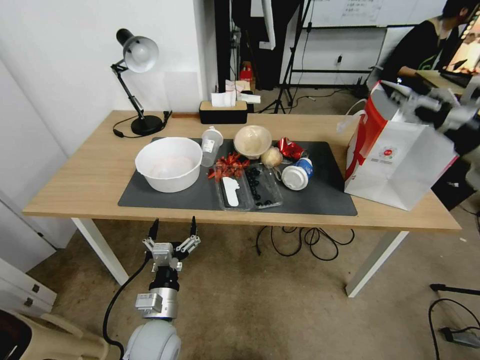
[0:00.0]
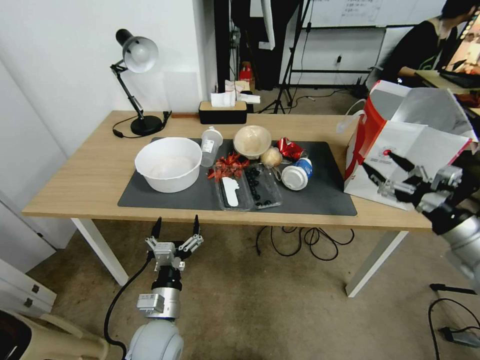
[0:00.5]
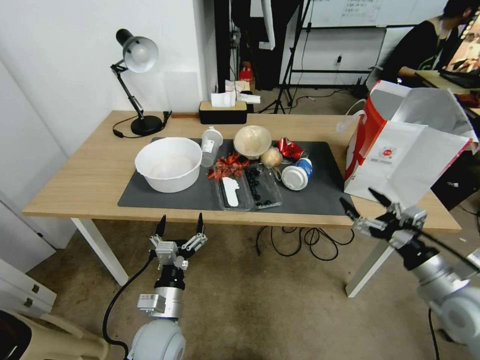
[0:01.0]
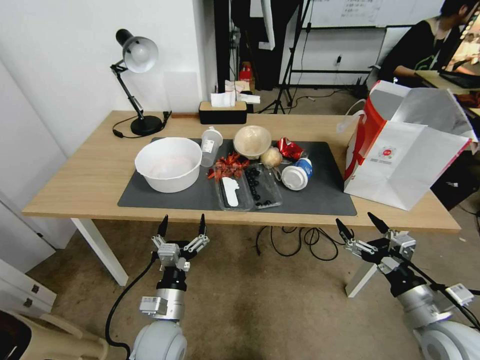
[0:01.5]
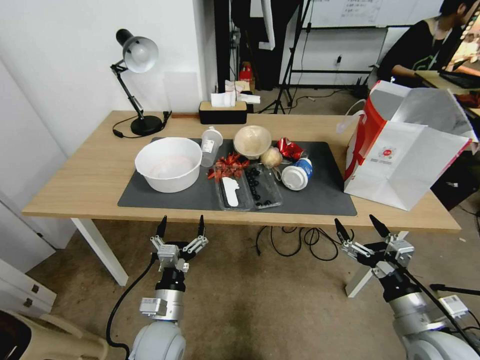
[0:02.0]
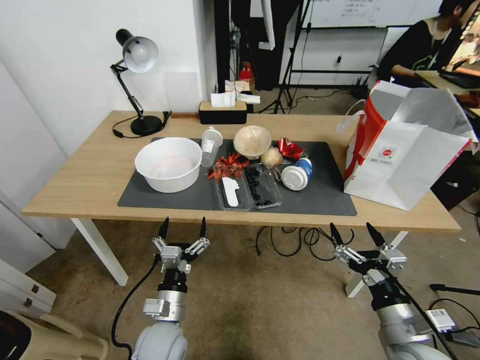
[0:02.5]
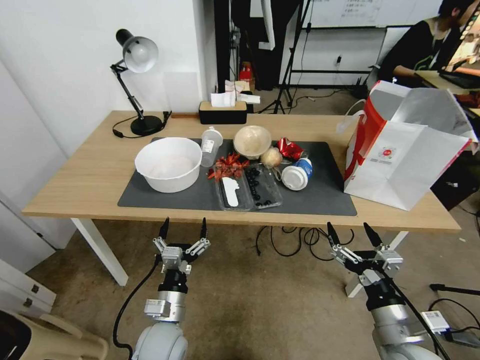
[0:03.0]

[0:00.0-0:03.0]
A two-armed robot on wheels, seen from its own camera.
Task of the whole recording: Pick up the food delivery bag from the floor and place it on the table.
0:00.0 to 0:01.5: The right gripper is displaced downward and backward by some 30 cm.
0:01.5 to 0:03.0: The right gripper goes approximately 10 cm to the left.

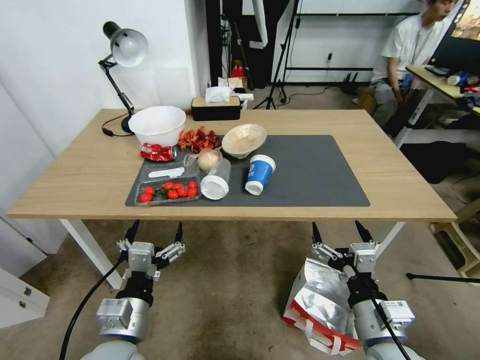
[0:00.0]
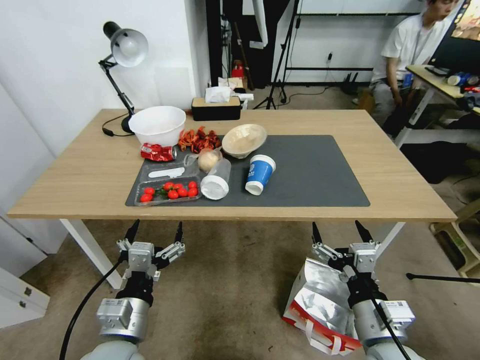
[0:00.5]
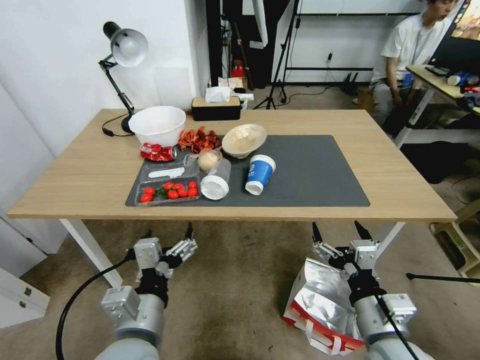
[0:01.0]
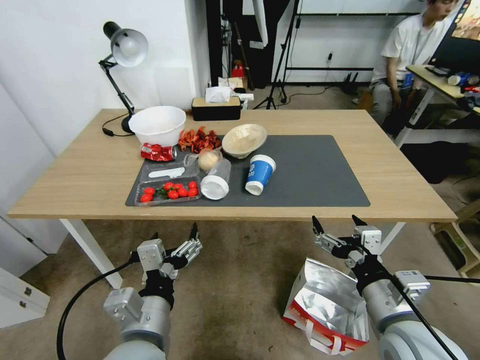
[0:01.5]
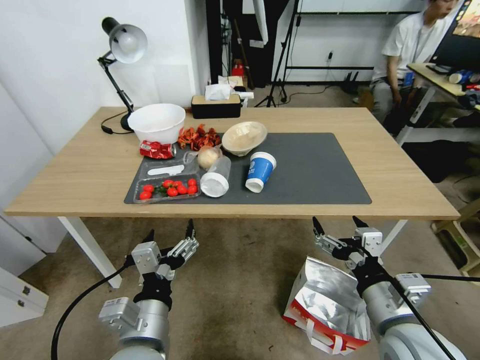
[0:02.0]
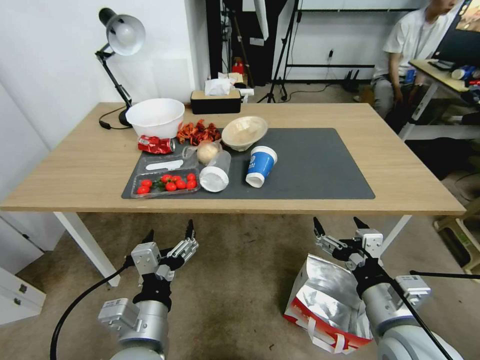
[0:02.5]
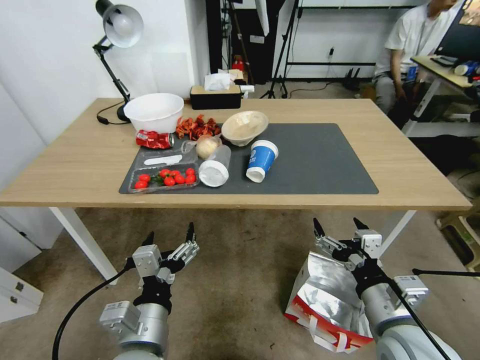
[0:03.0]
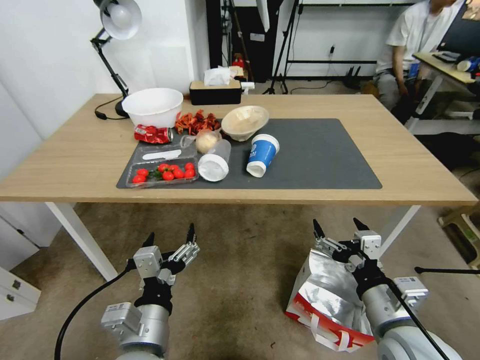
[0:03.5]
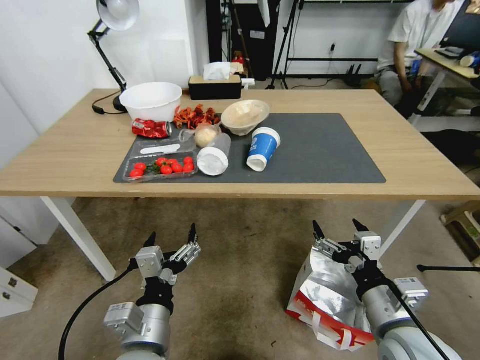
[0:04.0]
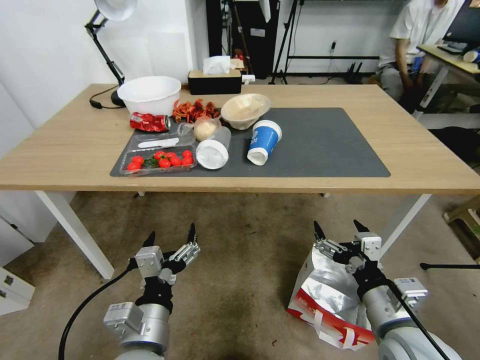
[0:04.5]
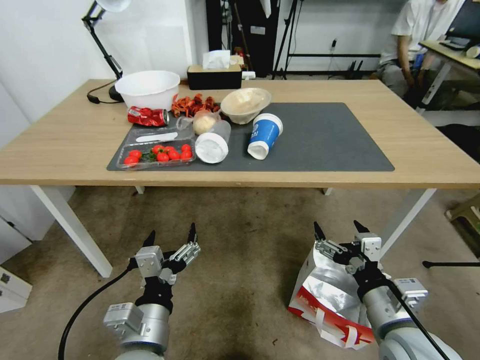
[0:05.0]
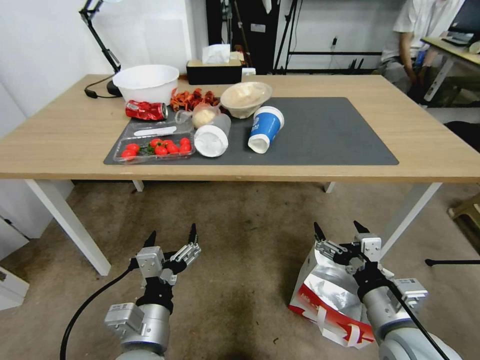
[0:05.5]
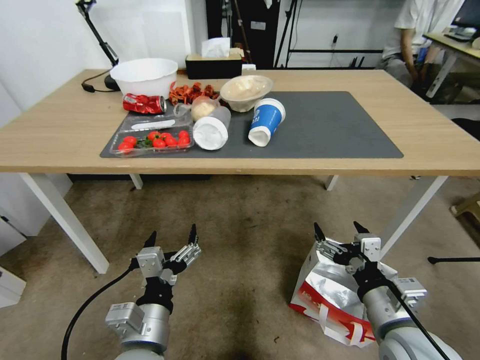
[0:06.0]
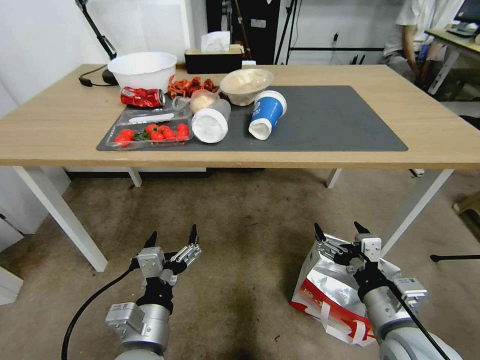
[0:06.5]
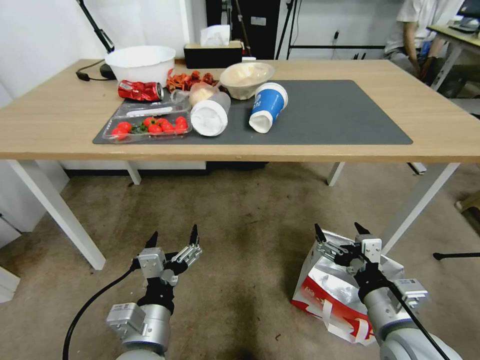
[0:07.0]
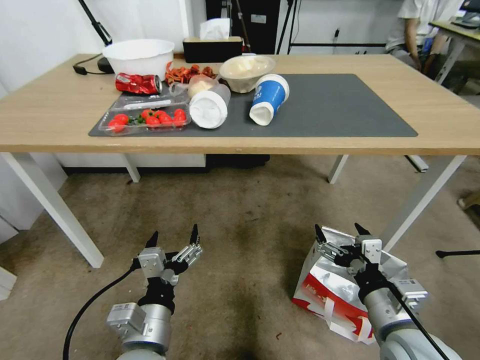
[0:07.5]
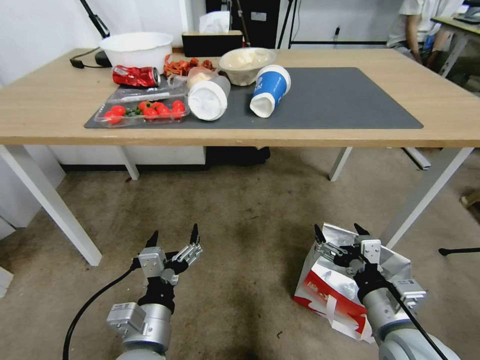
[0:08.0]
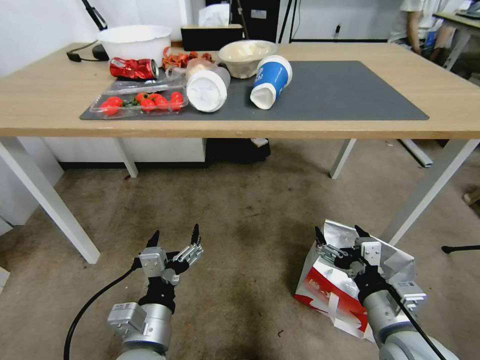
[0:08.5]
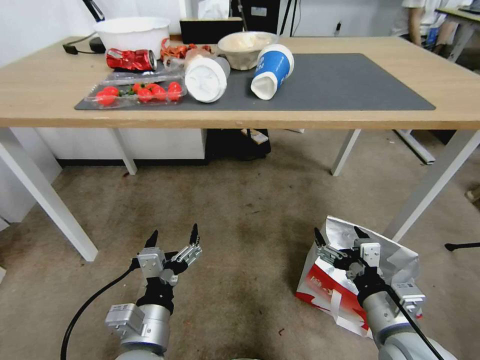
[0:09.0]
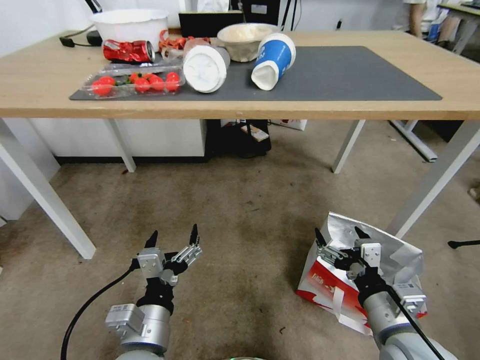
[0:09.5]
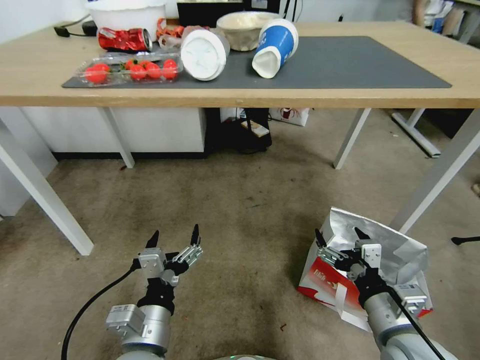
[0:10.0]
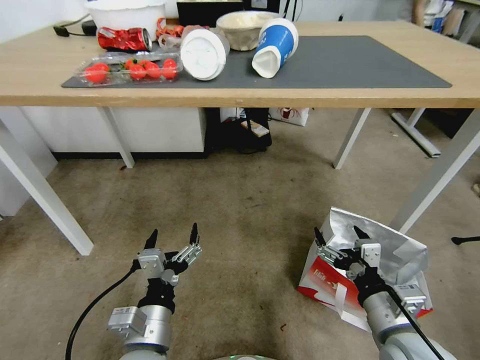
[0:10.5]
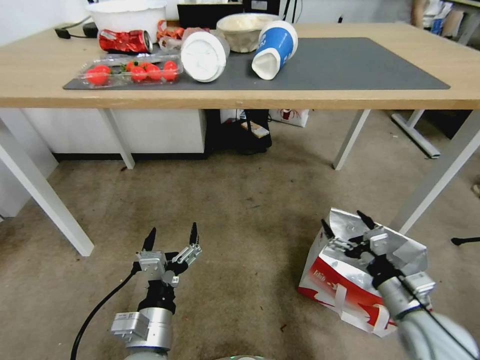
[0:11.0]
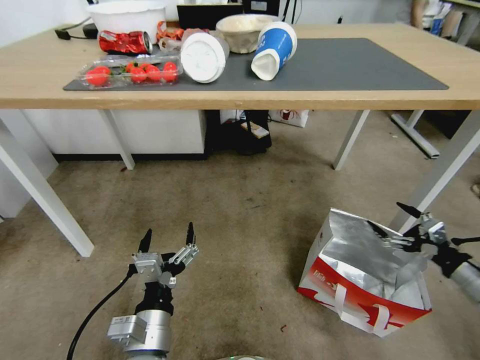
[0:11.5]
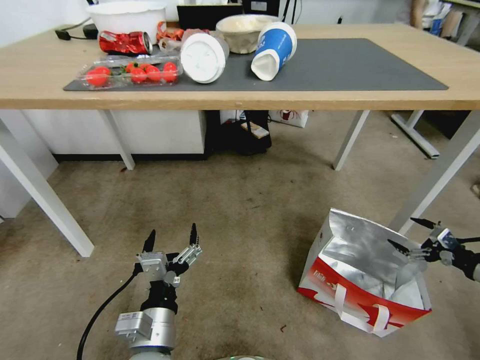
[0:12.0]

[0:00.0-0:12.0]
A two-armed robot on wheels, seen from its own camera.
Task of the whole recording: Pick up the food delivery bag from the floor and place it on the table.
0:10.0 to 0:12.0: The right gripper is displaced to the right by some 35 cm.

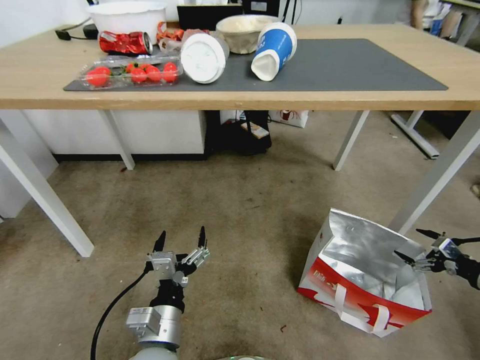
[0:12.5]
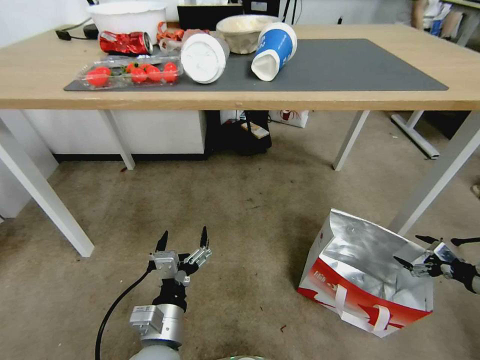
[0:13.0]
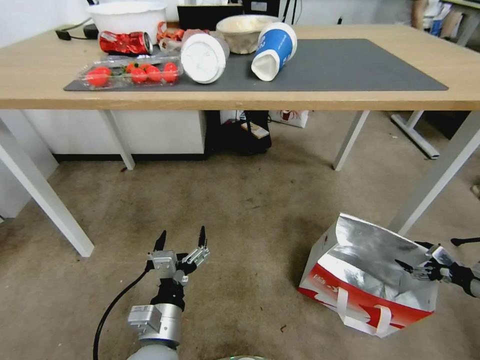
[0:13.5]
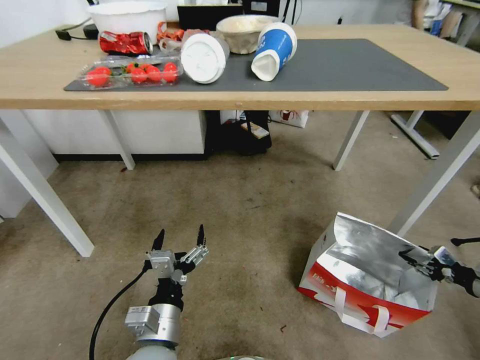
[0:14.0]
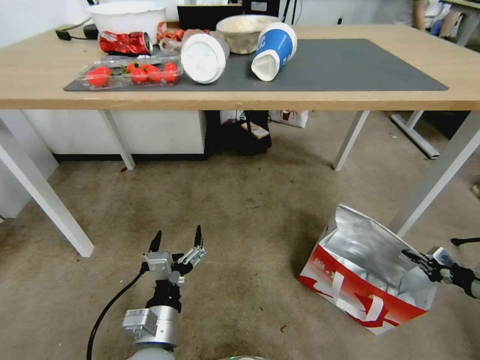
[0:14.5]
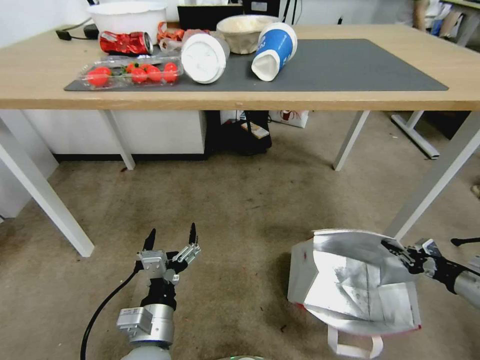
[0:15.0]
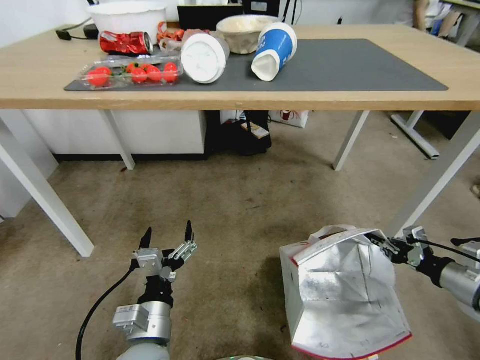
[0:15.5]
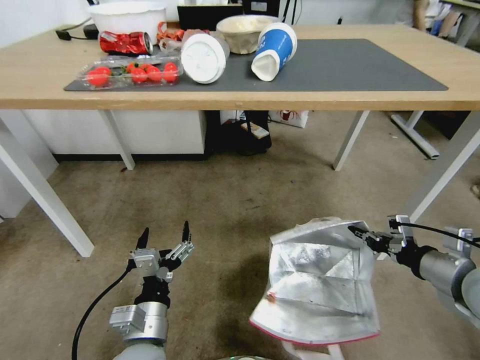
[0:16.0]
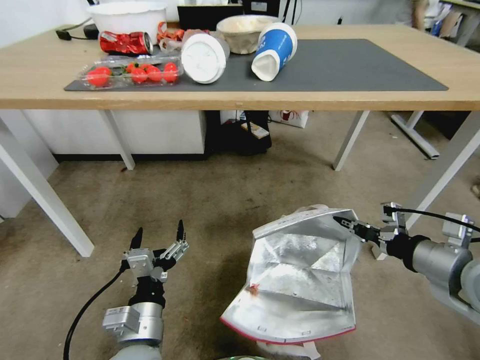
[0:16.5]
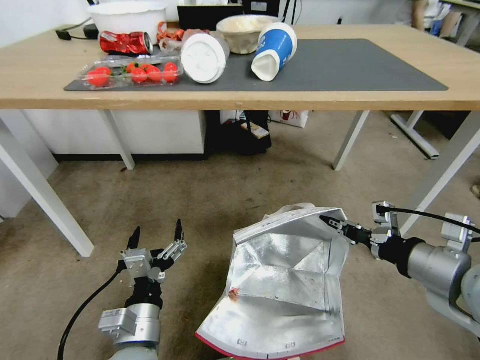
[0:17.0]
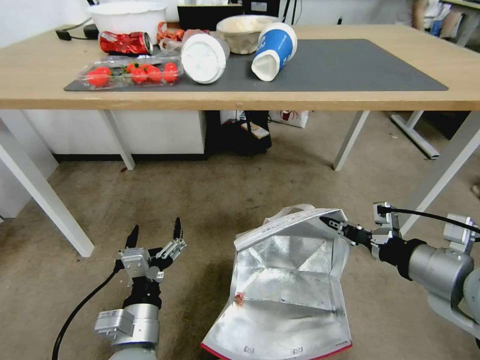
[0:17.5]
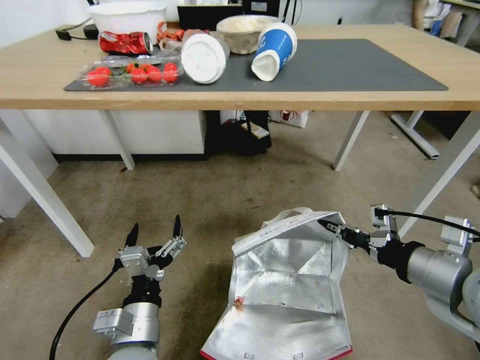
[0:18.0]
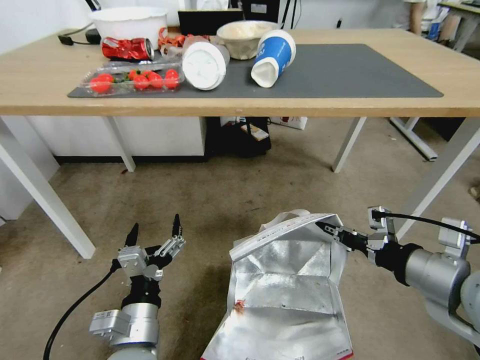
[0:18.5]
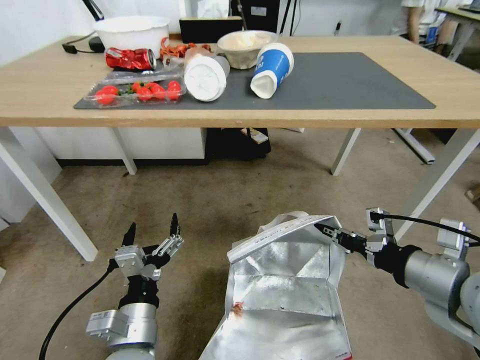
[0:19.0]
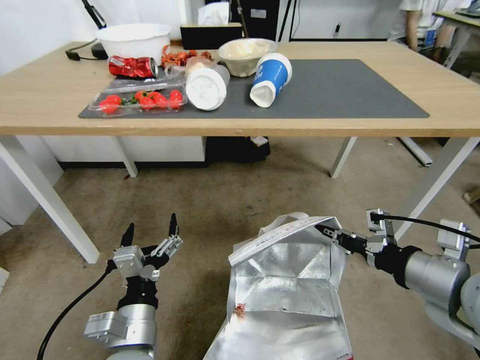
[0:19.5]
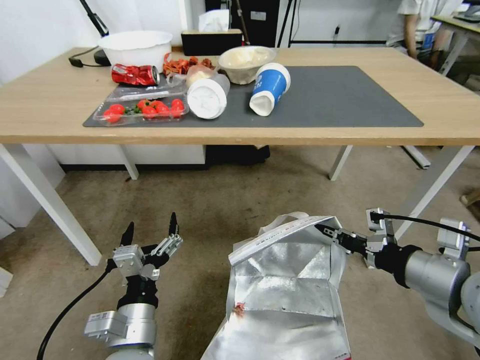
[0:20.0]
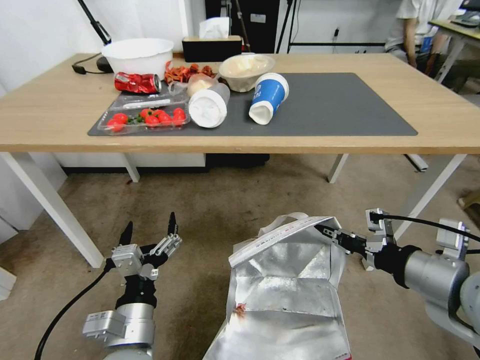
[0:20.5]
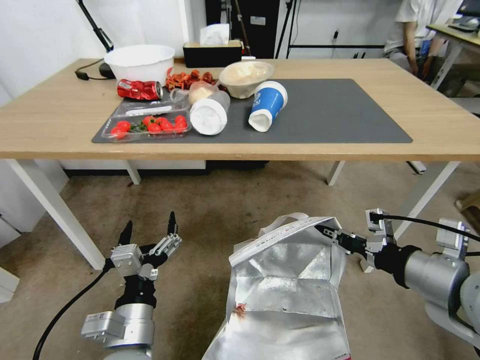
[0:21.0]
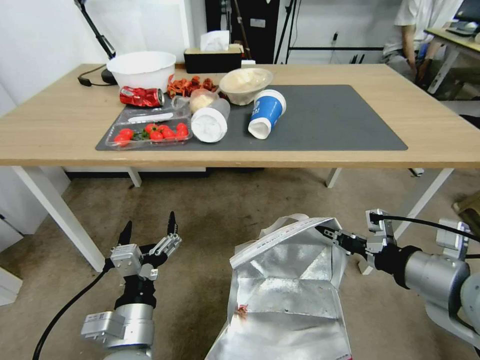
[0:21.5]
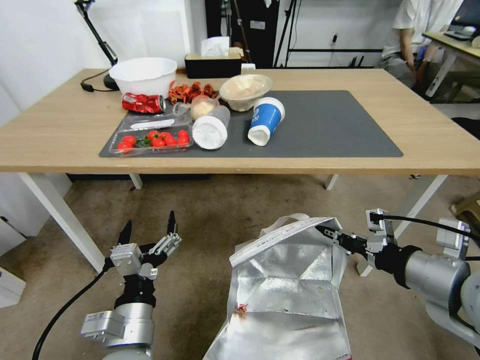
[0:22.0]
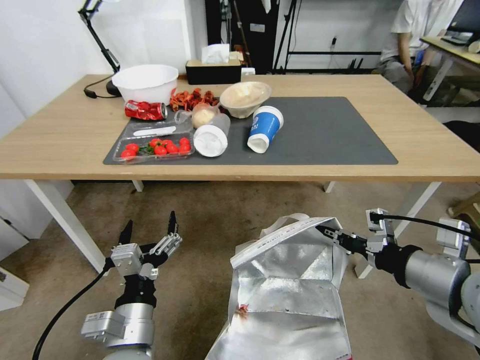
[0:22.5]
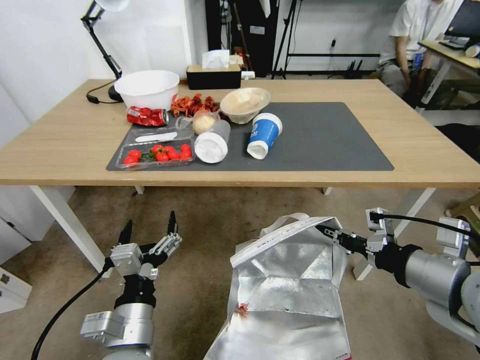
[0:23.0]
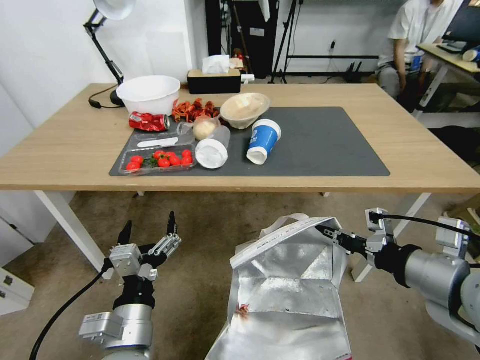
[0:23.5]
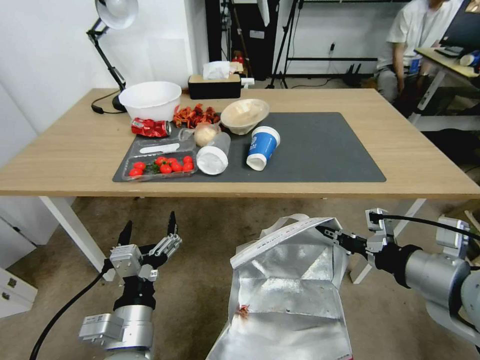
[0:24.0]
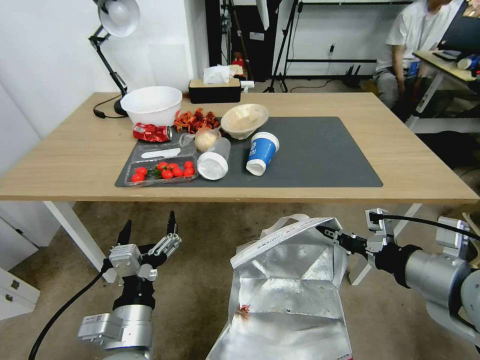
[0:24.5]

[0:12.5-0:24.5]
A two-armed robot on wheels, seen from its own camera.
Task of the whole recording: Pick up the food delivery bag from the floor and place it on the table.
0:12.5 to 0:14.5: The right gripper closes its fingers.
0:14.5 to 0:16.5: The right gripper shifts some 30 cm to the left and upward.
0:16.5 to 0:18.5: The right gripper changes place by roughly 5 cm.
